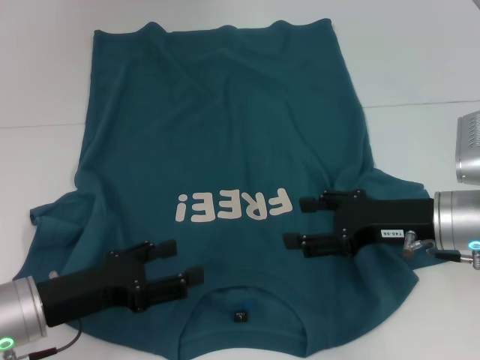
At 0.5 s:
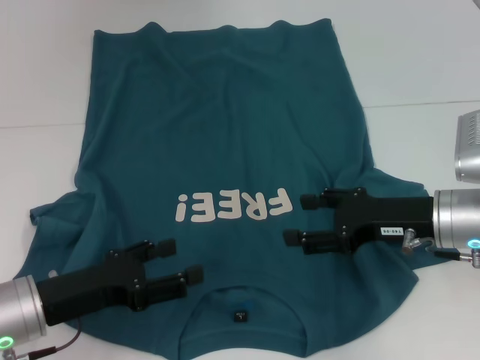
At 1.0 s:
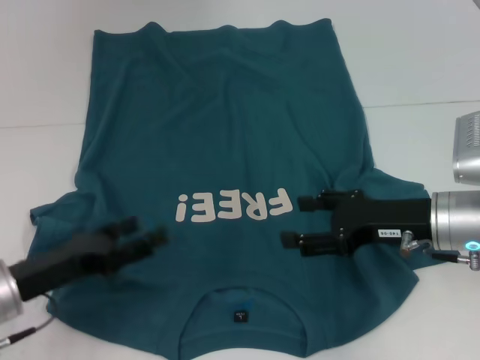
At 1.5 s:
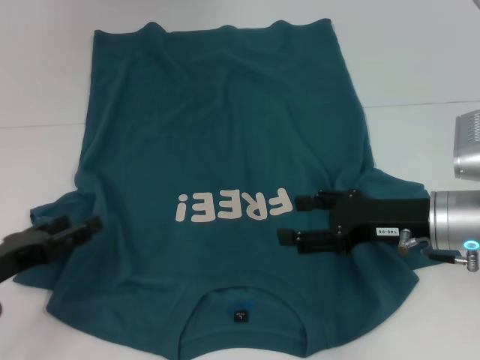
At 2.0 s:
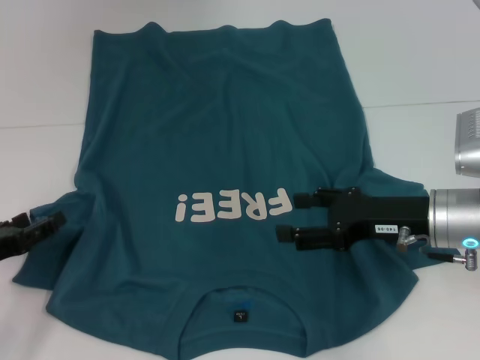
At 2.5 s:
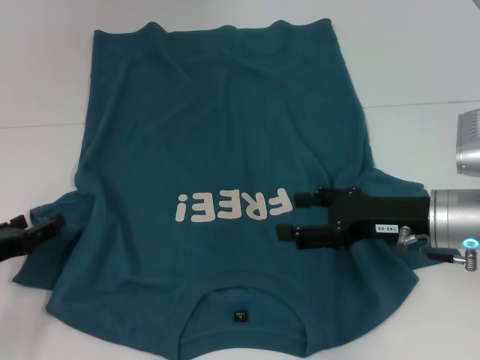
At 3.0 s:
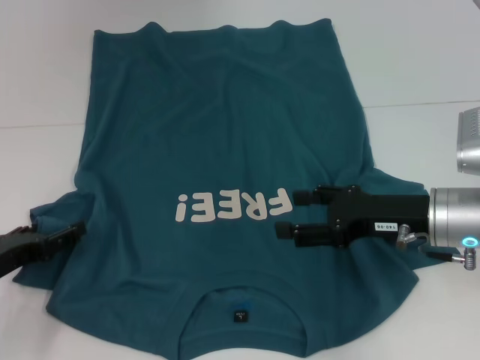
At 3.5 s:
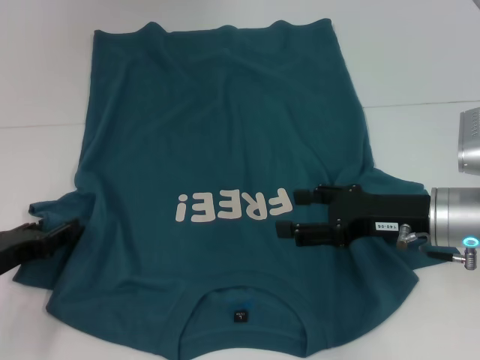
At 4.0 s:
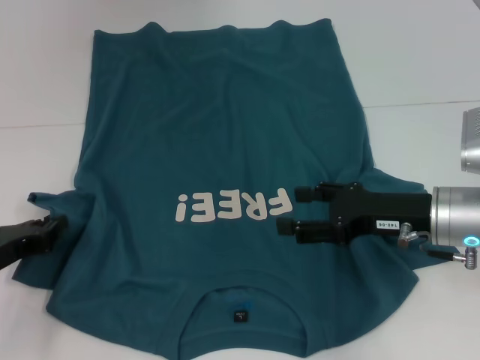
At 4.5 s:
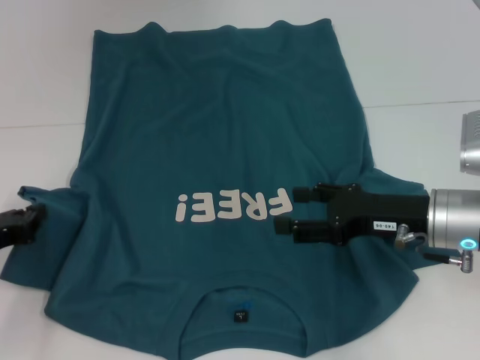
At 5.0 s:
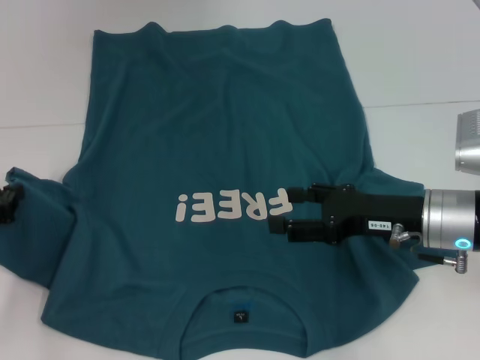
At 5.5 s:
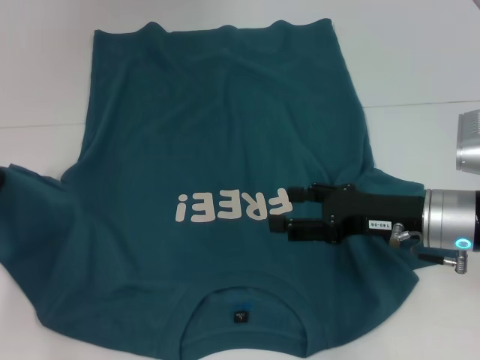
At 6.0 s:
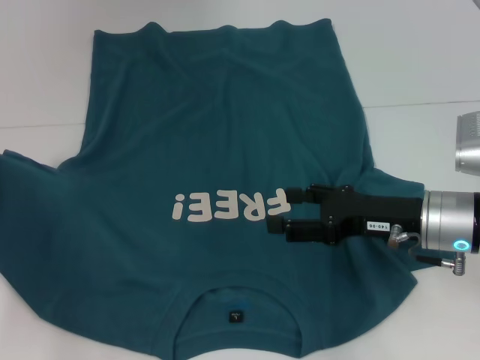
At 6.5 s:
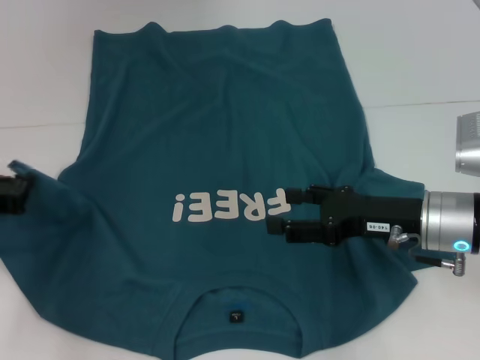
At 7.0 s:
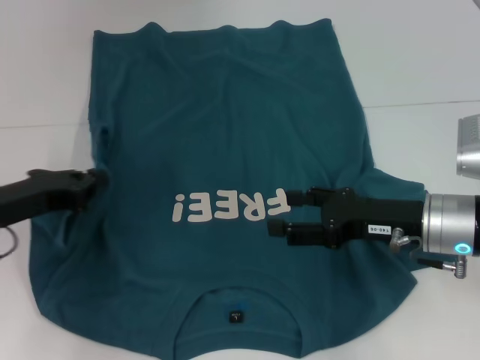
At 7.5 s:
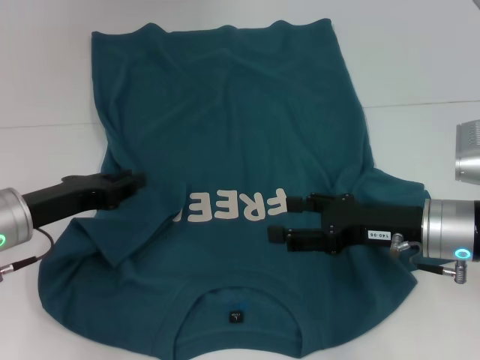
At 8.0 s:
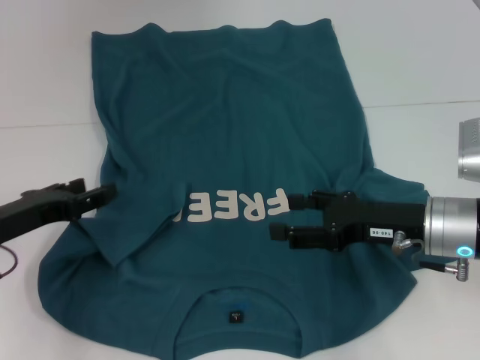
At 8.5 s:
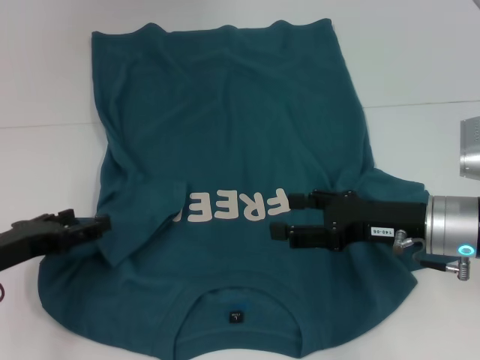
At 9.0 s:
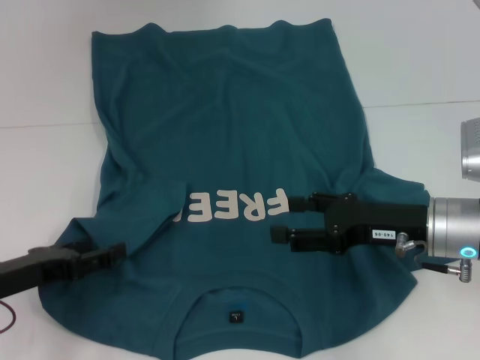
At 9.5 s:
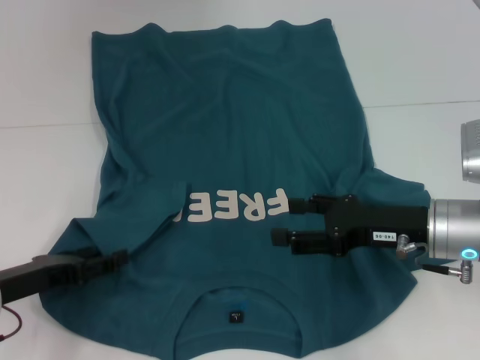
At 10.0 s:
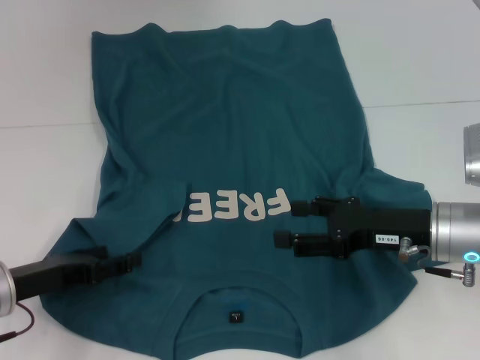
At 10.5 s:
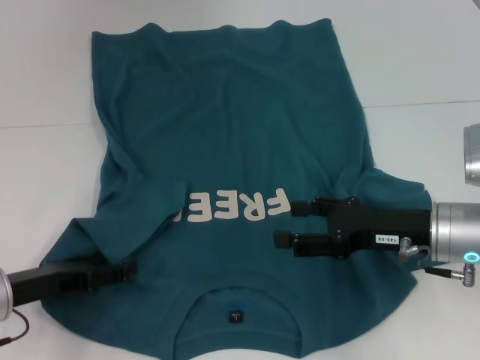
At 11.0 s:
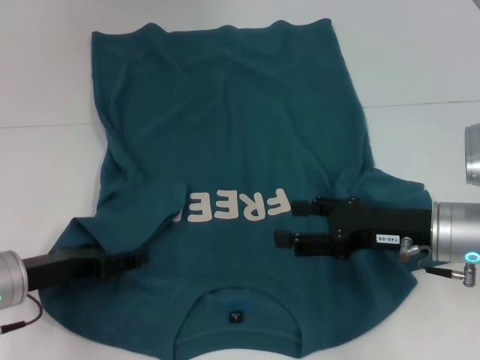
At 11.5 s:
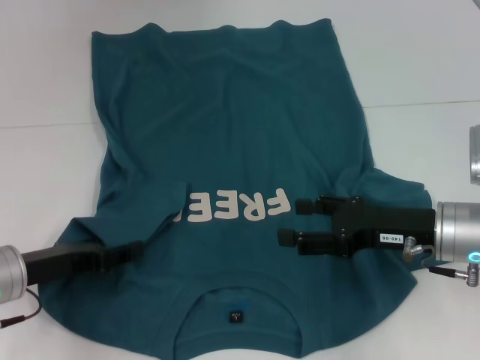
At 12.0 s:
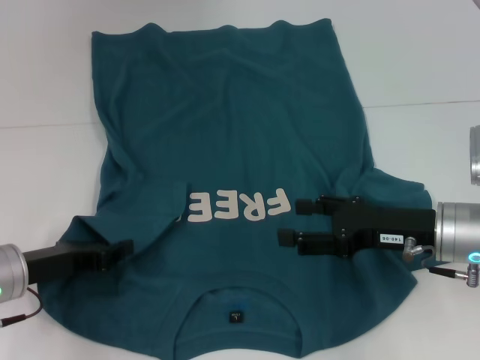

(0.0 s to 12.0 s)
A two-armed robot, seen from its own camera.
0.0 s - 2.0 s: The left gripper heads to the left, covering some 10 cm.
2.0 s - 4.0 s: The left gripper closes up.
4.0 s - 6.0 s: The left gripper goes approximately 5 cm upward.
6.0 s - 8.0 s: The left gripper goes about 5 cm to the right, and opens.
8.0 s - 10.0 s: There are only small adjustments of the grippers.
10.0 s - 12.0 s: The left gripper closes.

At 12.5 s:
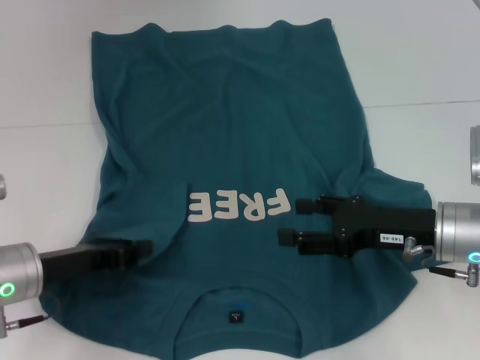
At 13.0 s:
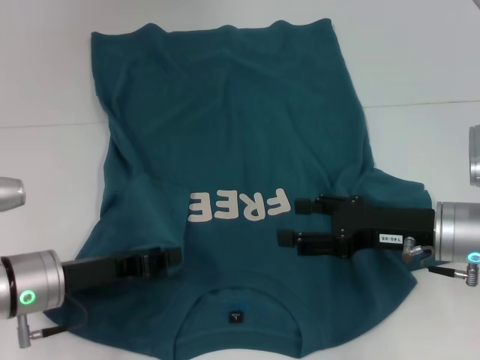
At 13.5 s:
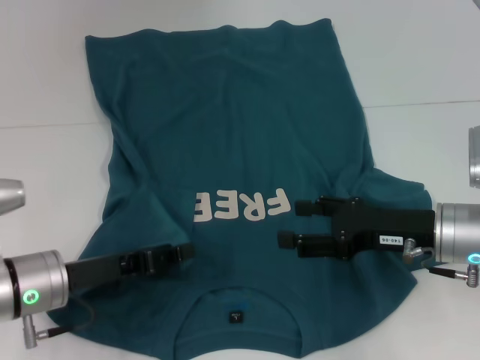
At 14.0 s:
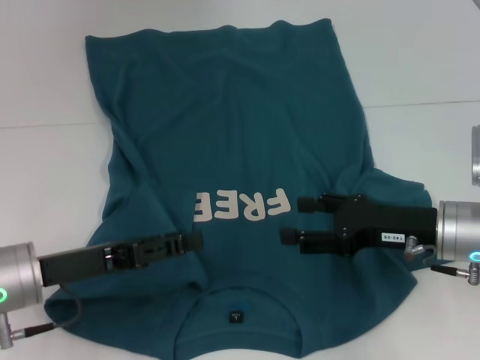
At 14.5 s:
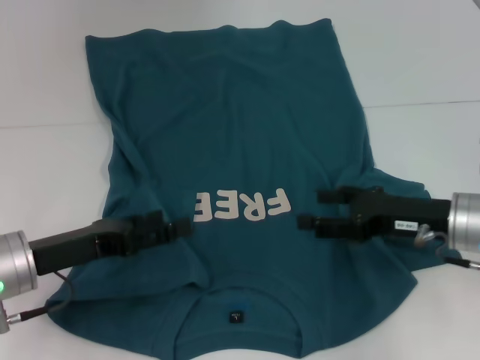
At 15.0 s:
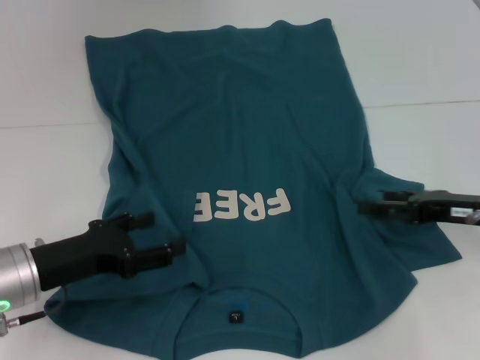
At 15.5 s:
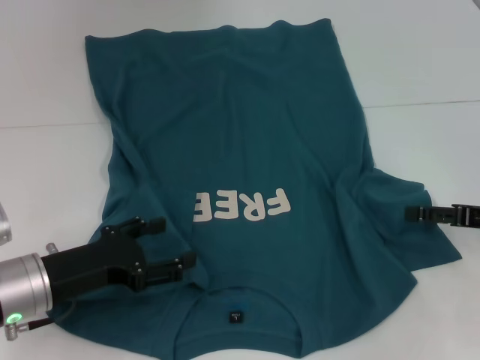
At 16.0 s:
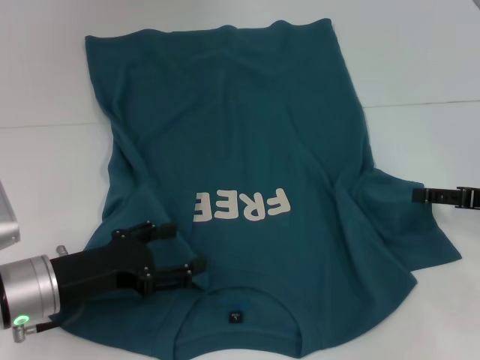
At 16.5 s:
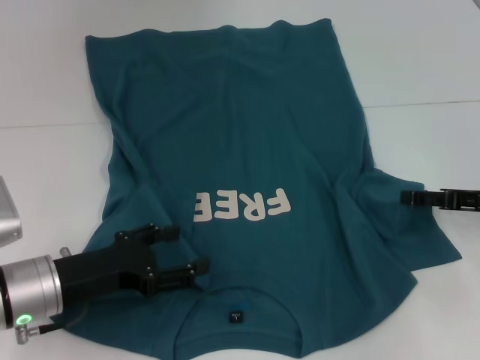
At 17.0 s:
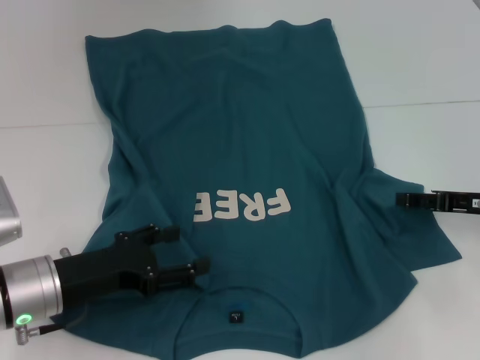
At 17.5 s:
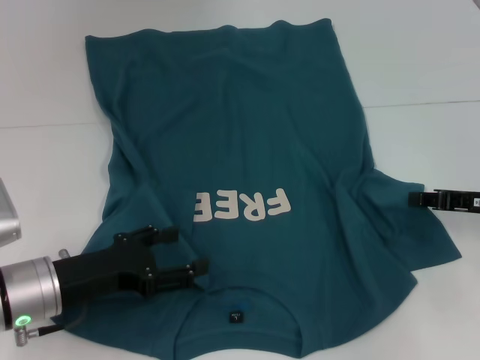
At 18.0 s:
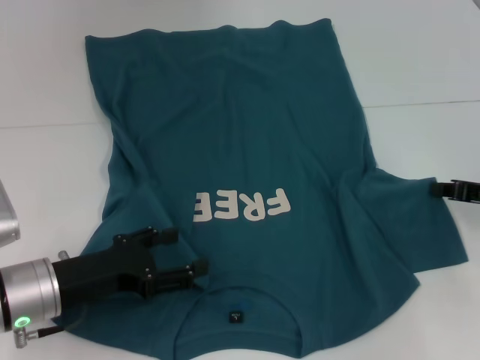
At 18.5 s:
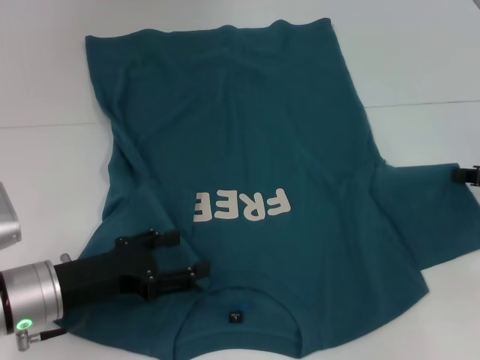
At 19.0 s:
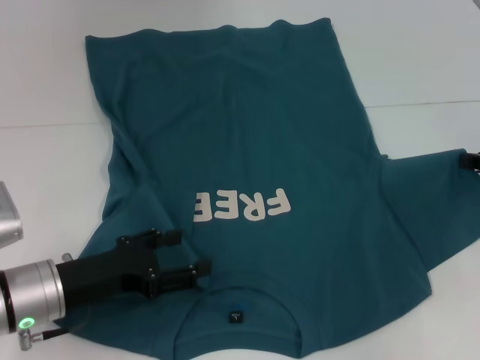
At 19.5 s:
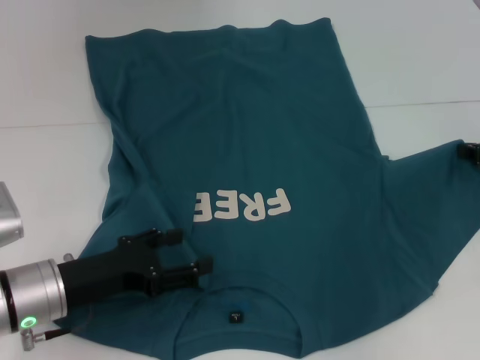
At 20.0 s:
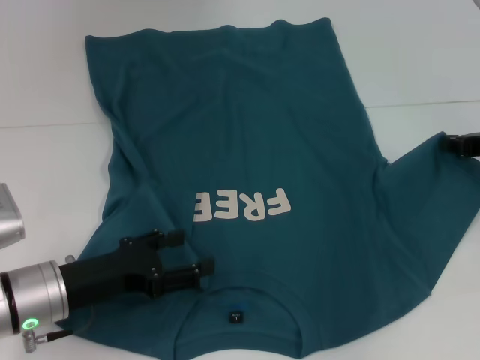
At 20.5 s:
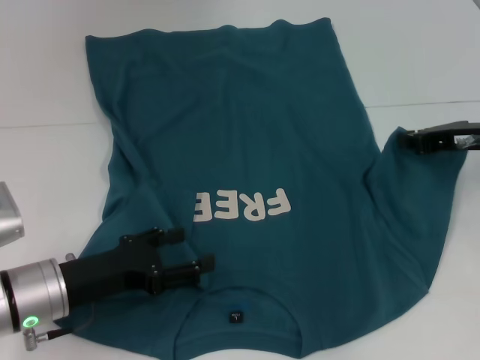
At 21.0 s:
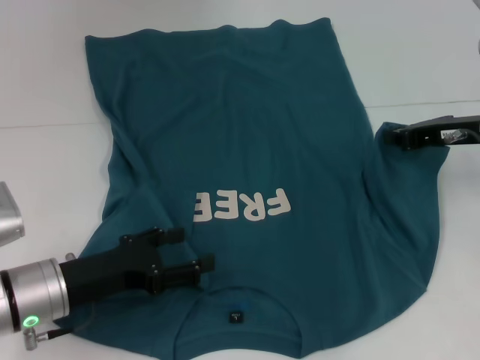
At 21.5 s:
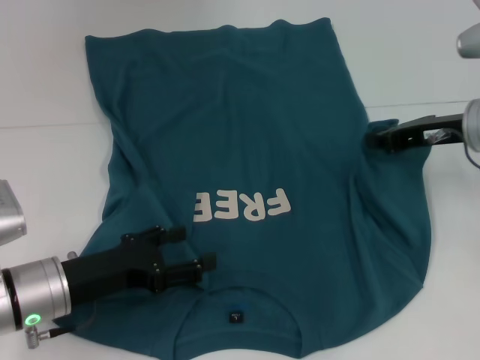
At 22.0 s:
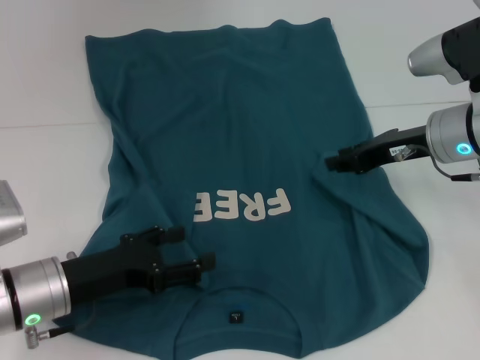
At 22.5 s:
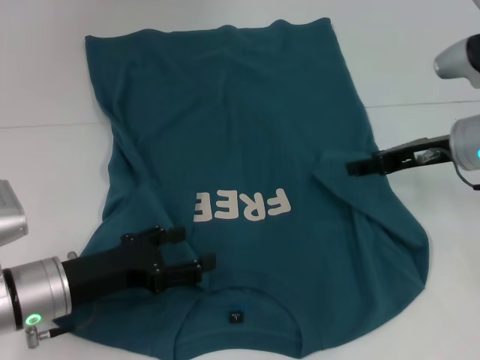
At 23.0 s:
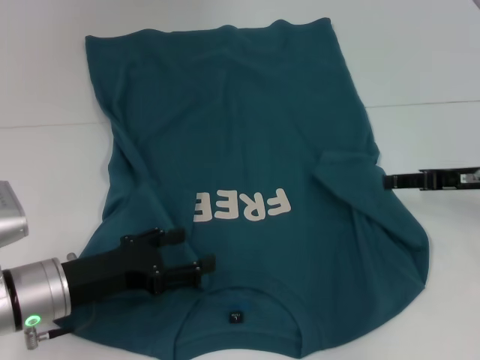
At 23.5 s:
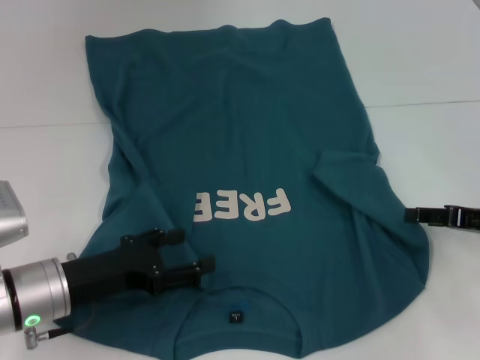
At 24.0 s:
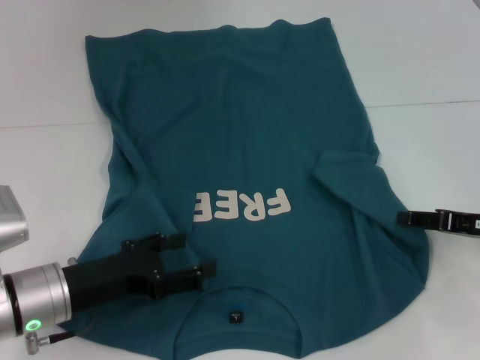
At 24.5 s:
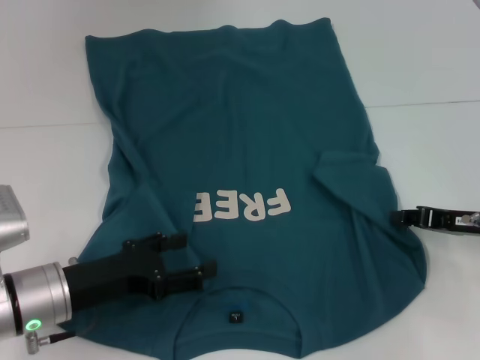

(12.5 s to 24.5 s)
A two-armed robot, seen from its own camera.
12.5 s - 14.5 s: The left gripper opens up.
14.5 s - 16.5 s: The right gripper goes approximately 10 cm to the right.
16.5 s - 18.5 s: The right gripper closes up.
18.5 s - 20.5 s: The right gripper heads to the left, covering approximately 5 cm.
20.5 s - 22.5 s: The right gripper opens its fingers.
22.5 s - 24.5 s: The right gripper goes approximately 10 cm downward, backward and to the right.

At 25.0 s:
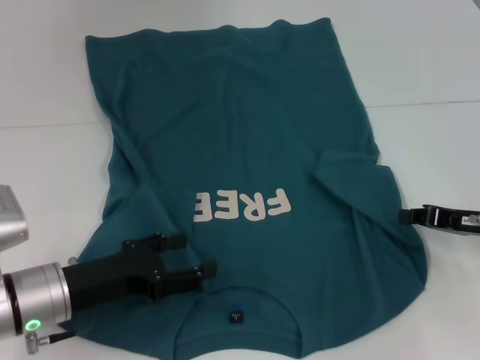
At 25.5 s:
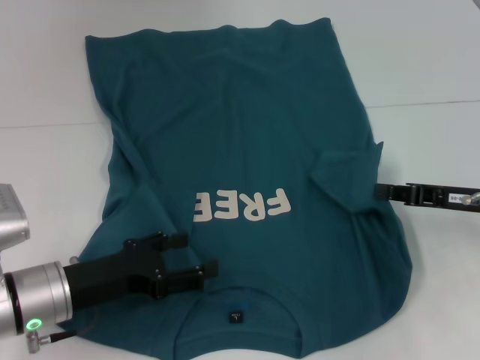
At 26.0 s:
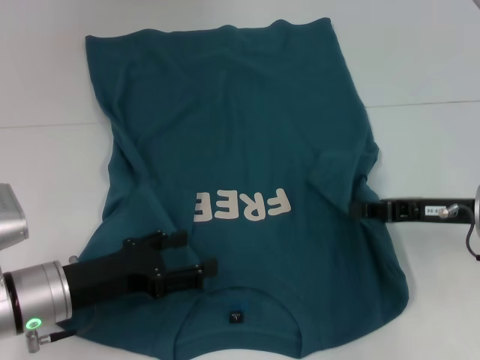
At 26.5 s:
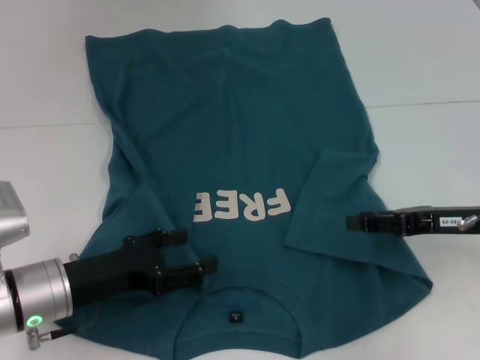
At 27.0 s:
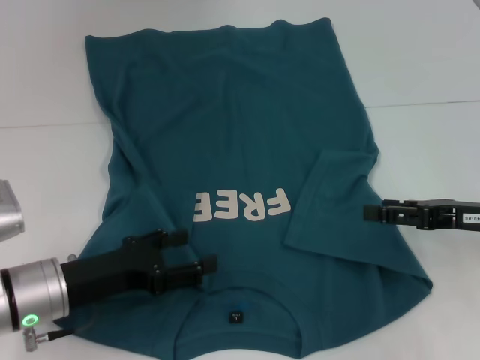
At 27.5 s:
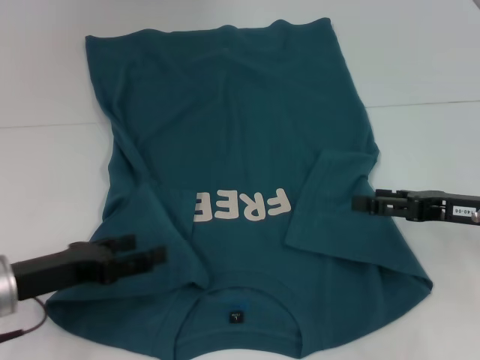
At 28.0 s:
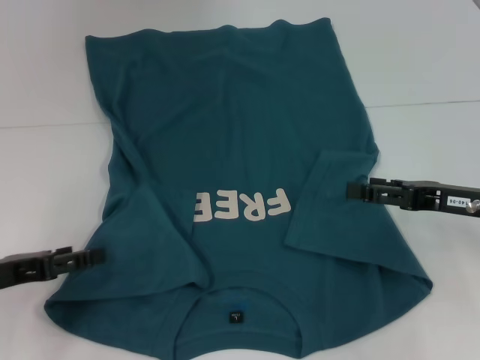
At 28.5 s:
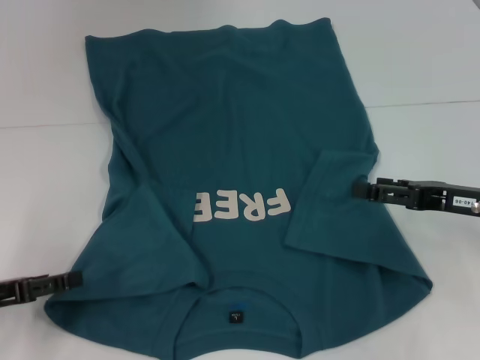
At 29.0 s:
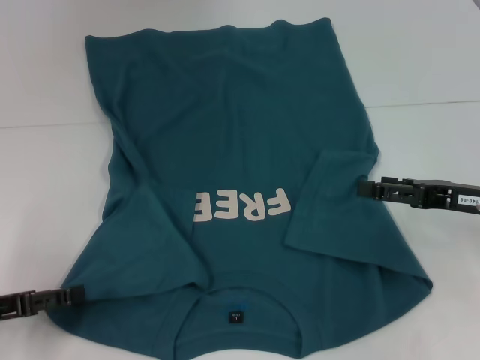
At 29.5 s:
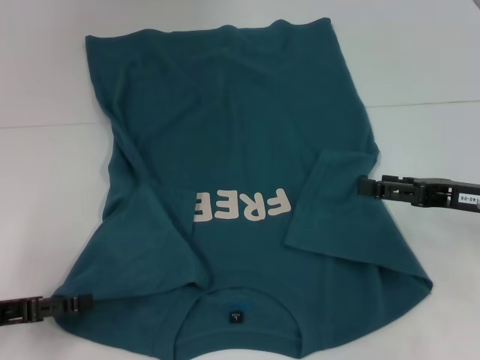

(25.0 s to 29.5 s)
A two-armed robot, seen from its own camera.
25.0 s - 27.0 s: The right gripper opens its fingers.
27.0 s - 29.5 s: The left gripper shifts roughly 10 cm to the left.
